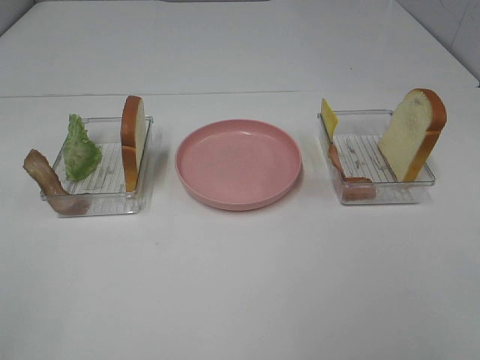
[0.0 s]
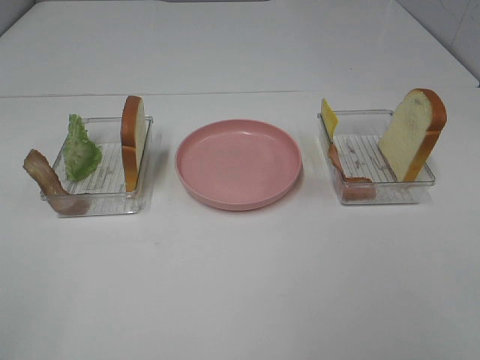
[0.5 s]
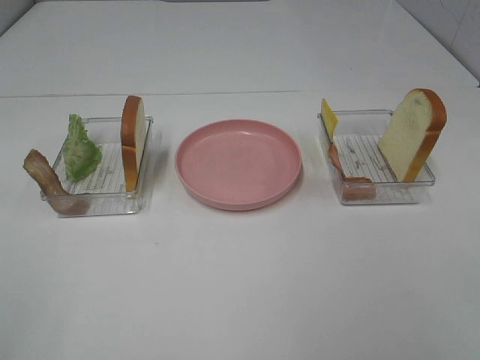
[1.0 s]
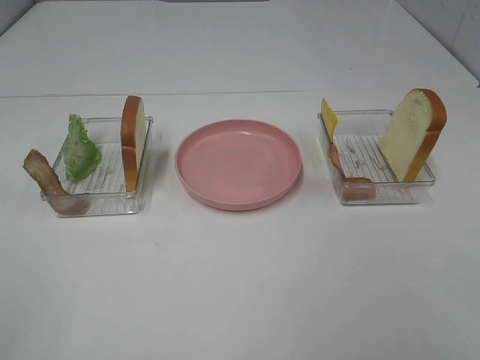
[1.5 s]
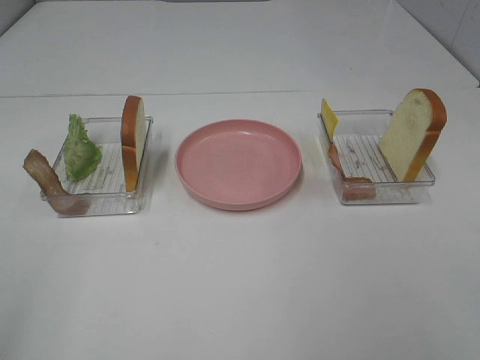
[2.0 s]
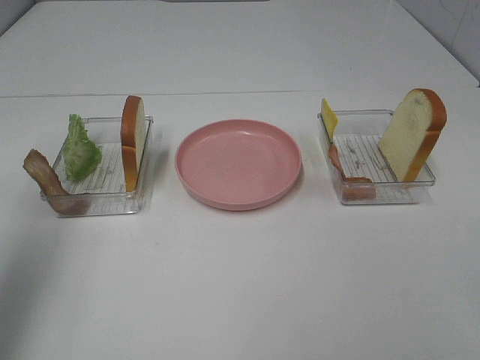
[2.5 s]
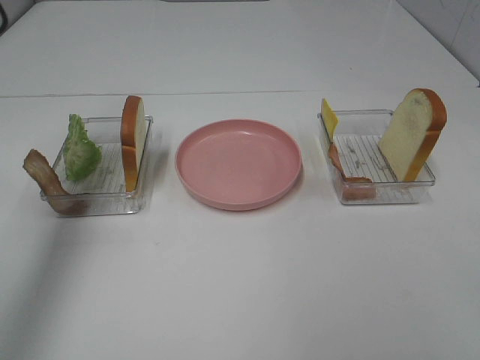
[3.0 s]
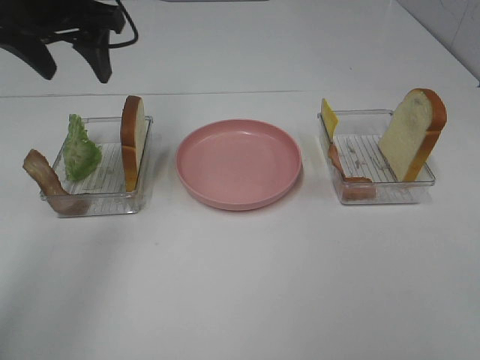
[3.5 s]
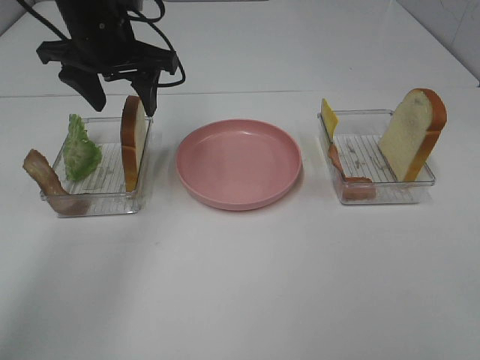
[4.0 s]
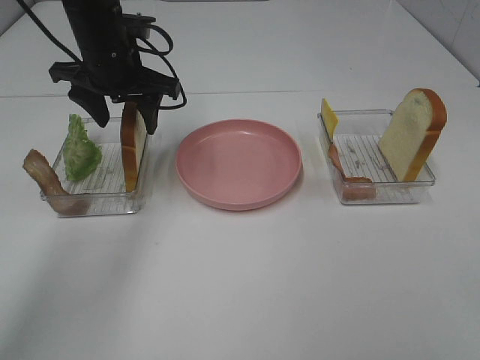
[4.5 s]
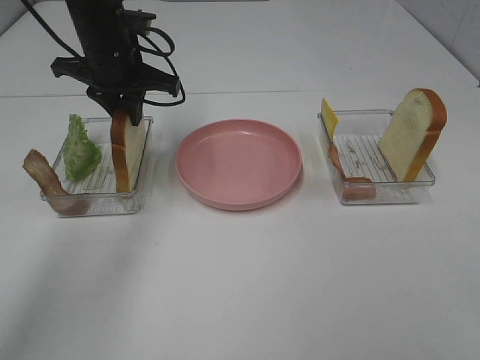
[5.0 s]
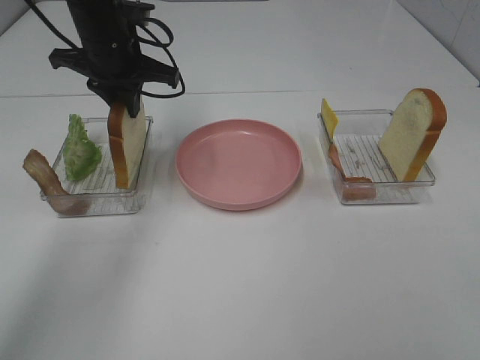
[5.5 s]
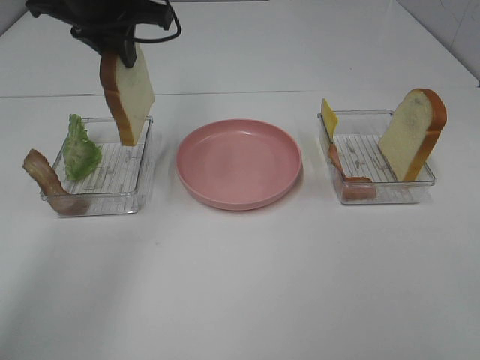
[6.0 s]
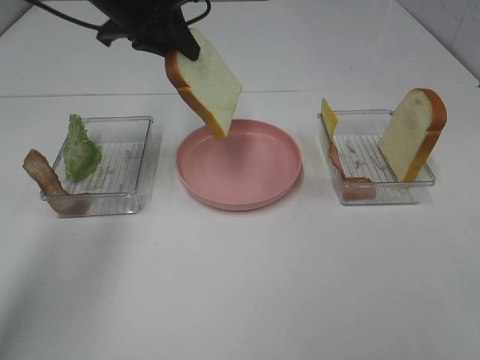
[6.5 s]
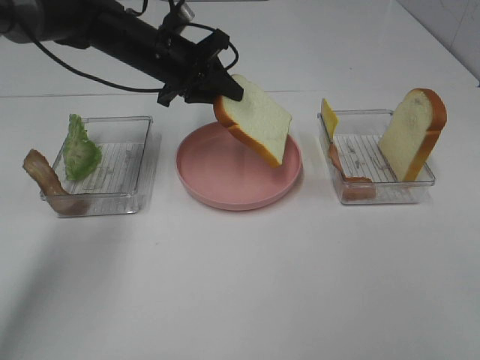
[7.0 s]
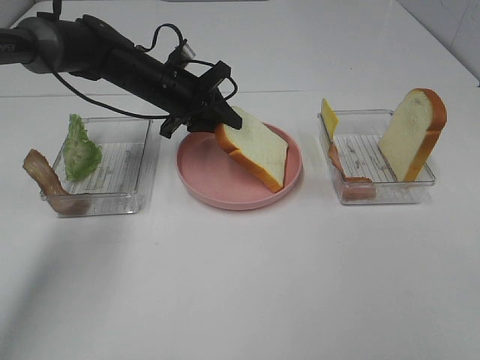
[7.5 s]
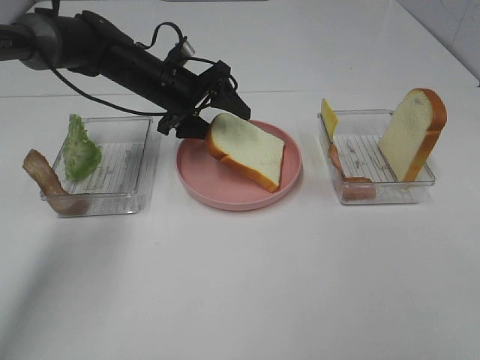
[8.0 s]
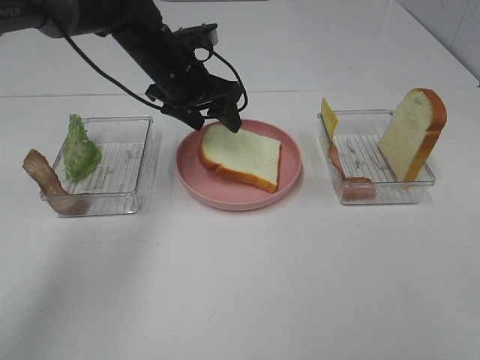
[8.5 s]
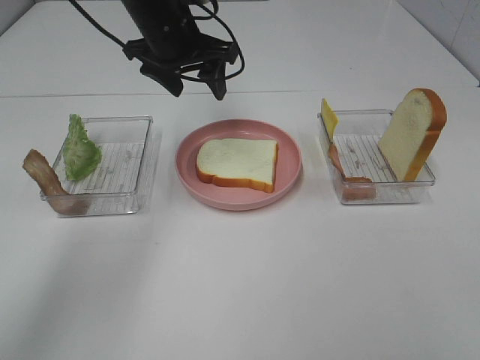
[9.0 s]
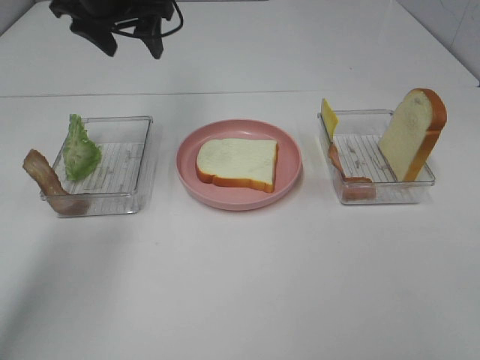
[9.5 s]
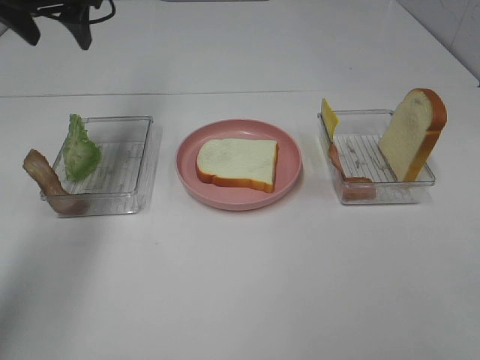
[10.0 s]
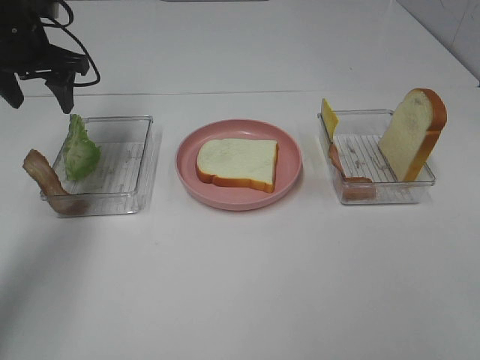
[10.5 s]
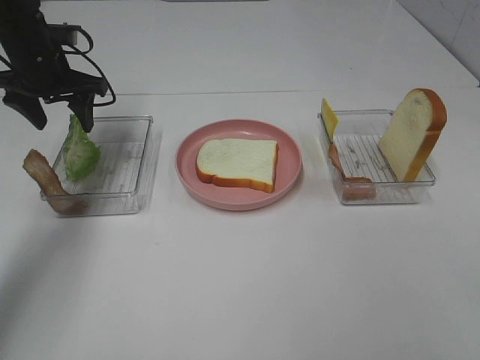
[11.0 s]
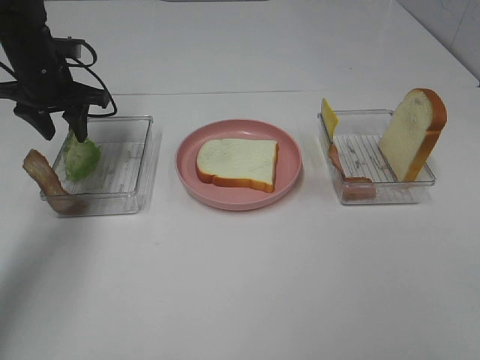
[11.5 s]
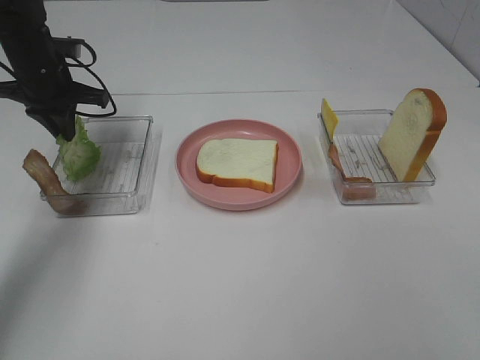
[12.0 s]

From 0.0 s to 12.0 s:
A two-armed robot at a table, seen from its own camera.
Task of the whole recording: Make sandwiches.
Step, from 0.0 s to 5.0 s: Left hand:grab the bread slice.
Step, from 5.5 s to 8.5 s: Left hand:place the bread slice on the plate.
From 2.0 s to 4.0 s: The left gripper moves forward and to the right, approximately 40 cm.
From 4.0 s to 6.0 s: The left gripper goes about 5 cm upward, and closes.
From 6.0 s to 8.0 s: The left gripper is displaced downward by about 15 cm, and opens.
From 8.0 s to 10.0 s: The left gripper moves upward and to the left, roughly 20 cm.
From 10.0 s to 12.0 s: The left gripper moves downward, about 15 cm, and closes its fingers.

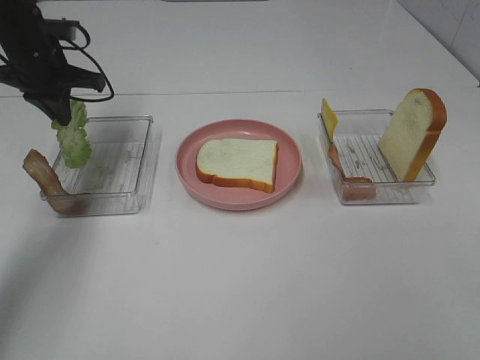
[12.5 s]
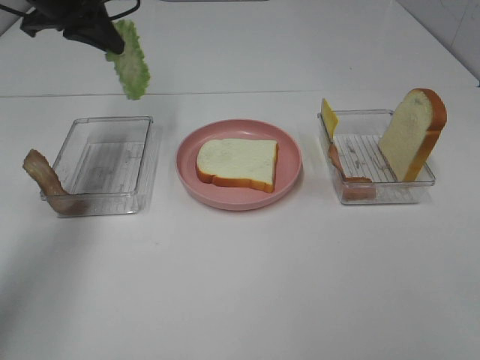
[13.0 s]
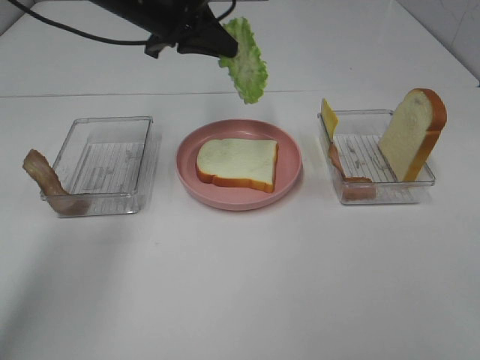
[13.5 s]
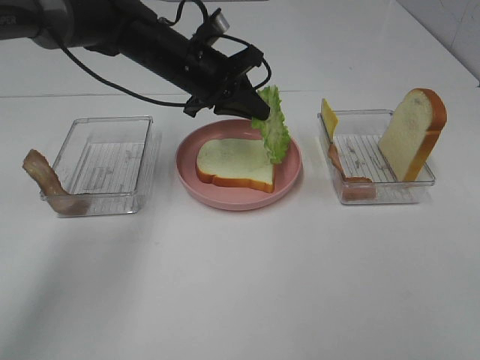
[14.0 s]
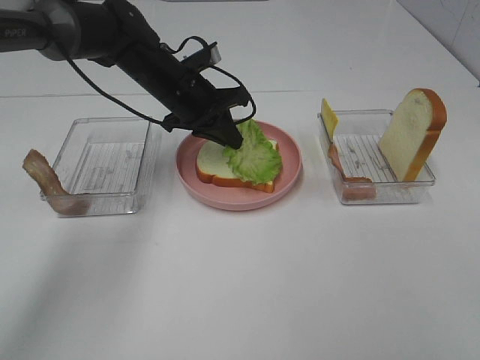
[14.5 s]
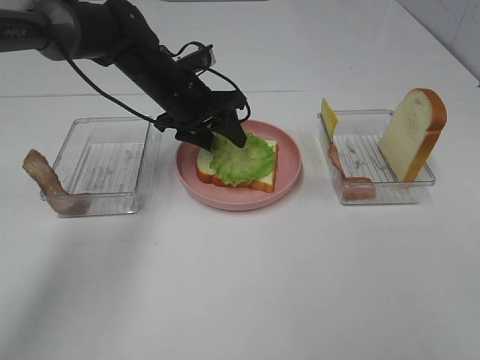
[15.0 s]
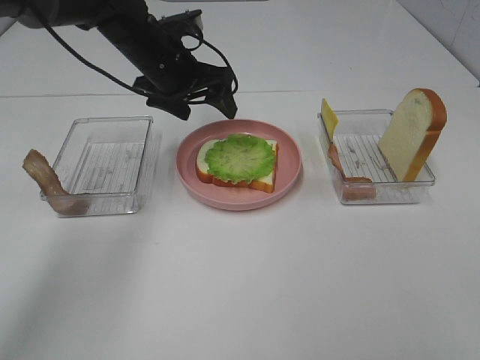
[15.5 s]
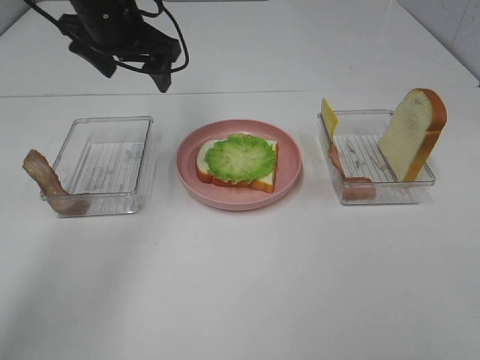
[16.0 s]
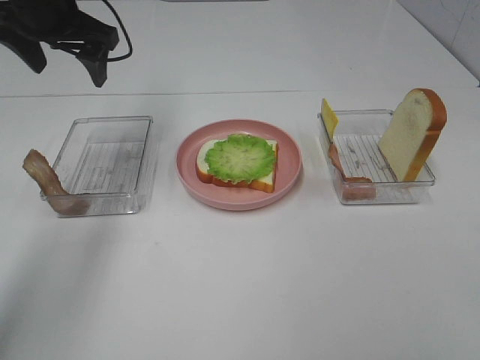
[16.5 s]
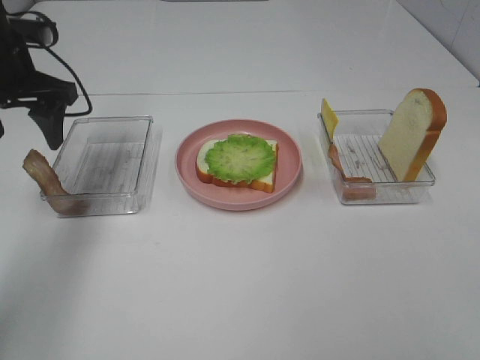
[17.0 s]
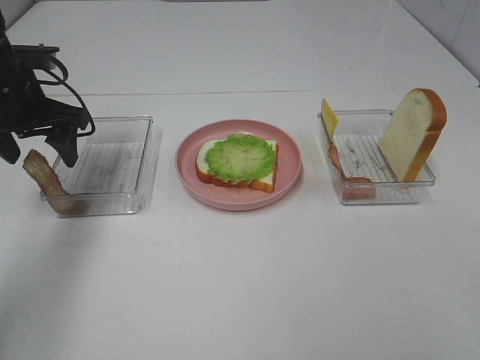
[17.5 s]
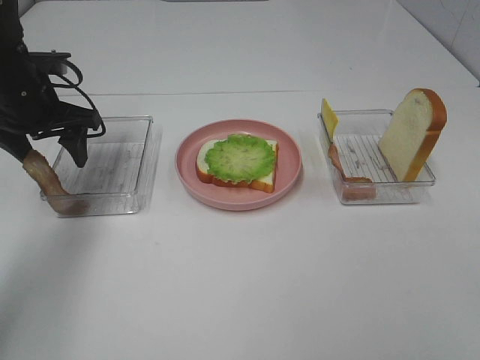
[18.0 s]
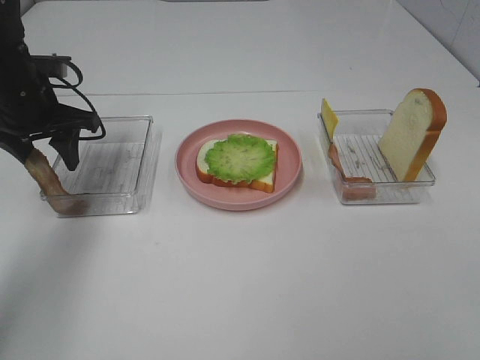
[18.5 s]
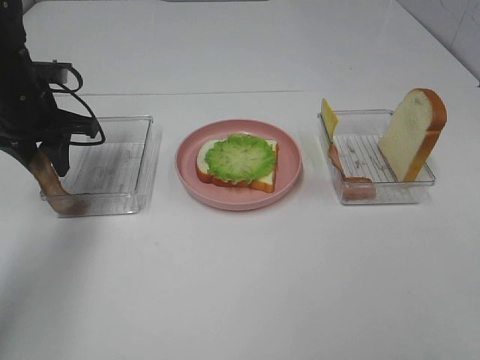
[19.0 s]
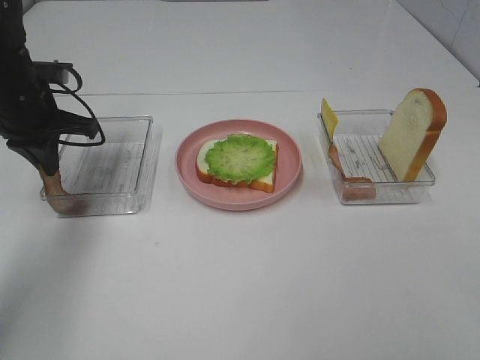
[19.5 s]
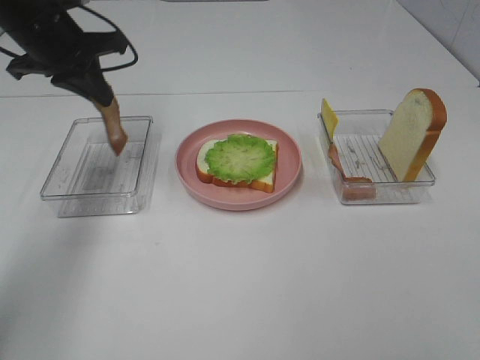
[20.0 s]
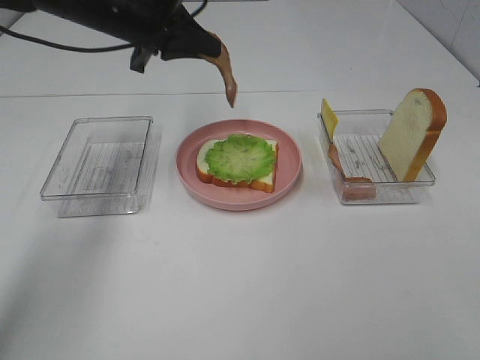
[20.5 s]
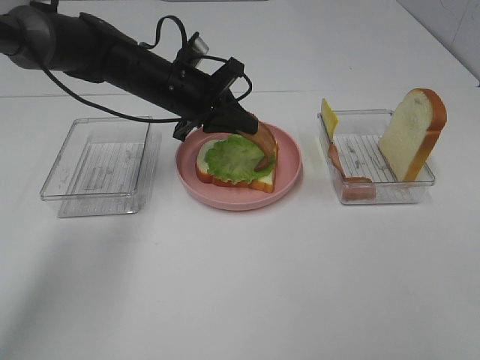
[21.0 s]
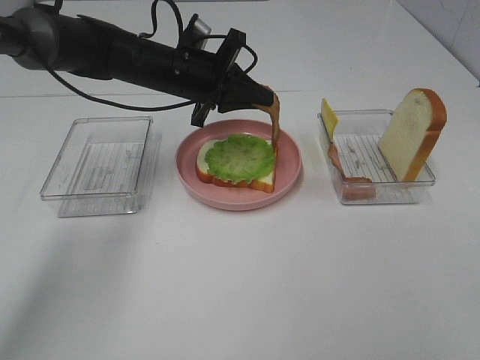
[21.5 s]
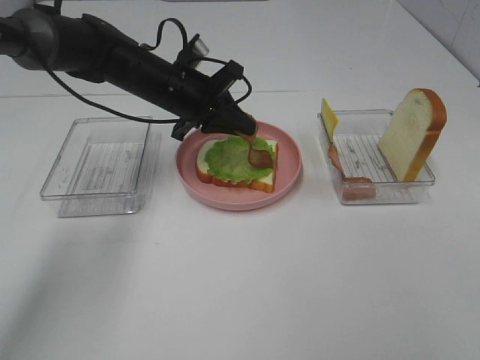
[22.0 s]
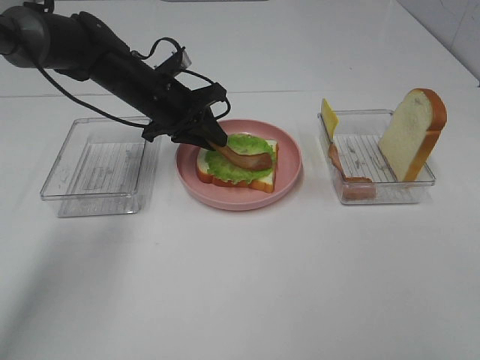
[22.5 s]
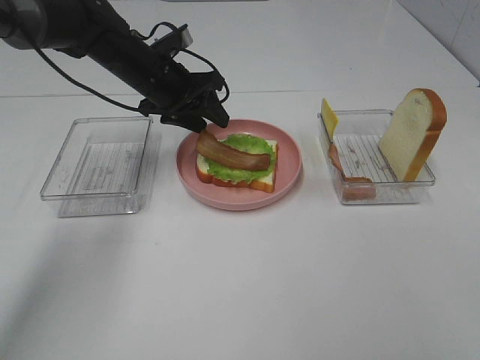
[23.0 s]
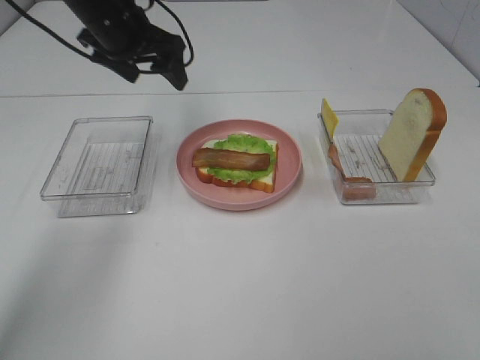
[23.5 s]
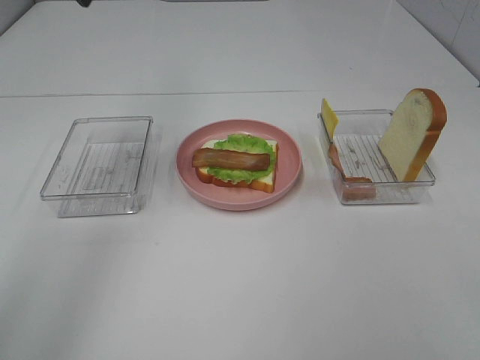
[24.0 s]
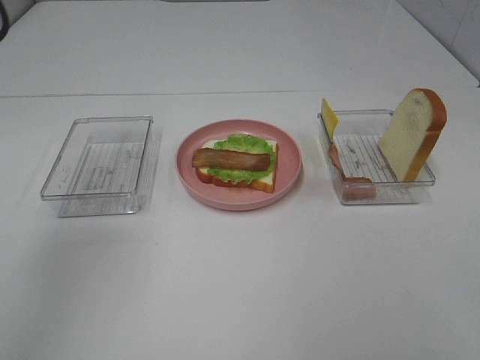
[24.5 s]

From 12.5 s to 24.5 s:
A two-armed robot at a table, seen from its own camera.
Task of the whole recording: Make sandwiches.
Step, from 12.5 s to 15.5 s: Left hand:place the lettuce slice on the bread slice.
Step, from 16.0 s to 19.5 s: Left hand:grab the bacon.
Step, from 20.0 s to 23.5 s: Left hand:place bacon on lettuce slice.
From 12.5 s to 14.5 s: The left gripper is displaced to the right by approximately 20 cm.
From 14.5 s to 16.5 s: The left gripper travels upward and to the left by roughly 20 cm, and opens up.
From 16.5 s to 18.5 s: The left gripper goes roughly 10 cm downward.
From 18.5 s to 20.5 s: The left gripper heads to the right and upward, covering some 15 cm, and closes its fingers.
From 20.5 s to 22.5 s: The left gripper moves downward, roughly 10 cm.
From 22.5 s to 24.5 s: The left gripper shifts about 35 cm upward, backward and to the left, and opens.

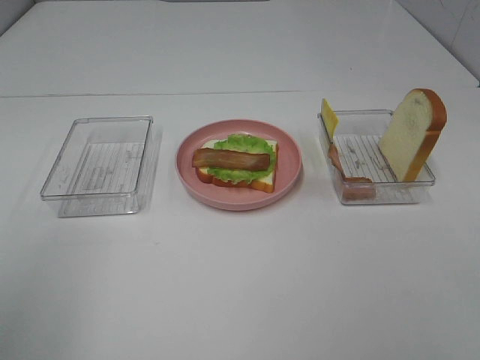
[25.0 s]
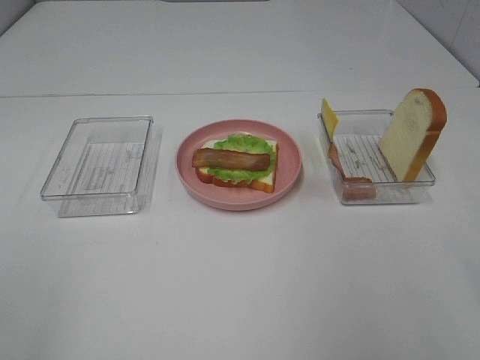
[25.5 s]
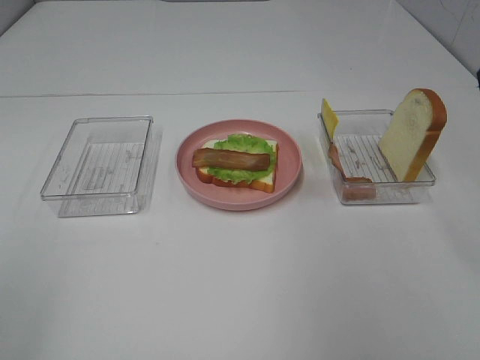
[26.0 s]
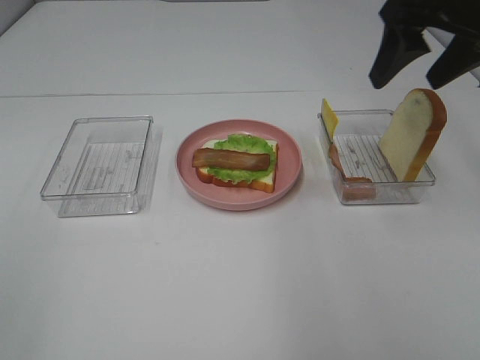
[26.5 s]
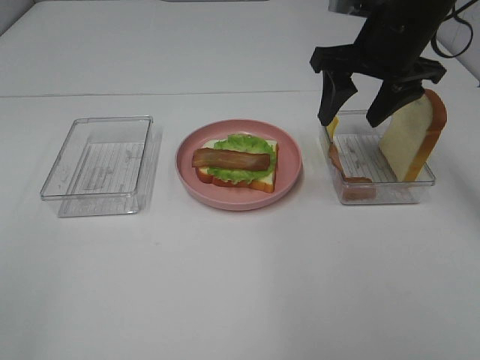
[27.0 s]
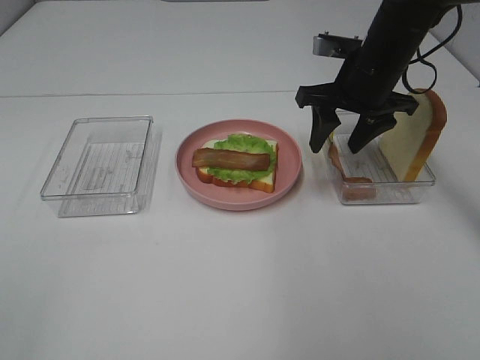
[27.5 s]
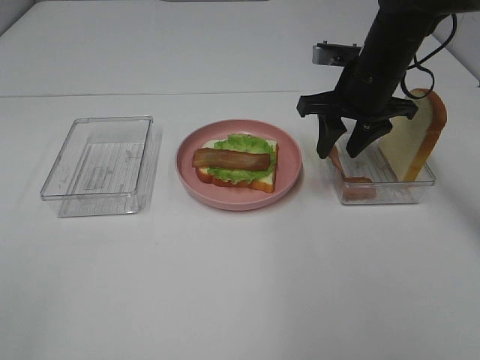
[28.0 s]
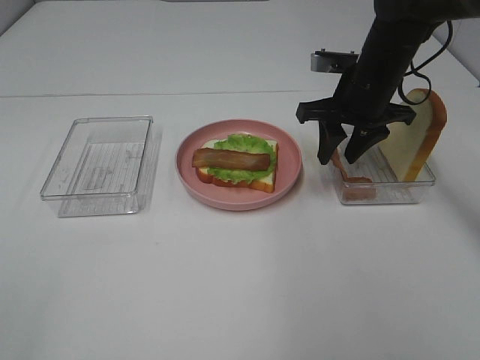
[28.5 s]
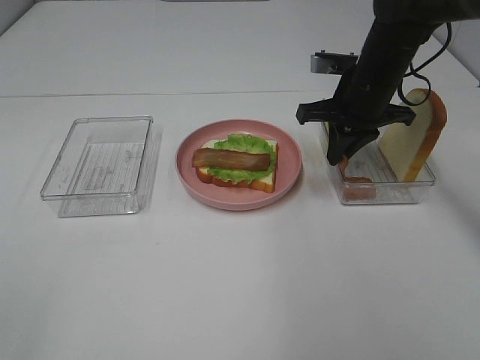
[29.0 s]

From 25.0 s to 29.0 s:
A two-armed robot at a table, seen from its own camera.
Task of the whole recording: Make sandwiches.
From 25.0 s to 27.0 s: The right gripper travels forward by roughly 35 cm.
From 27.0 s to 29.0 s: The right gripper goes about 10 cm downward, and closes its fingers.
